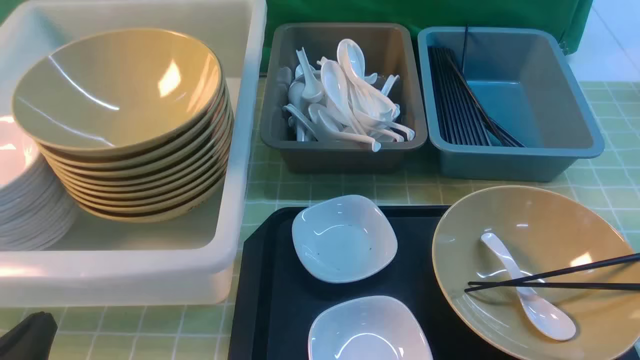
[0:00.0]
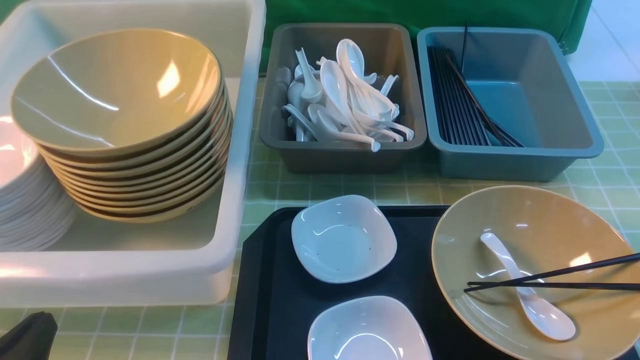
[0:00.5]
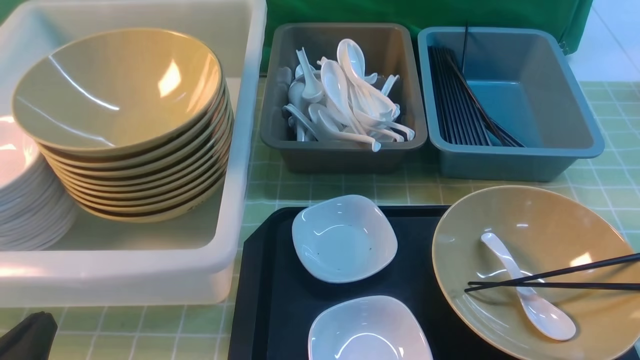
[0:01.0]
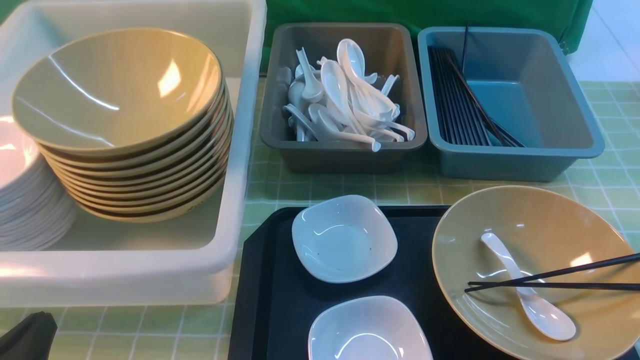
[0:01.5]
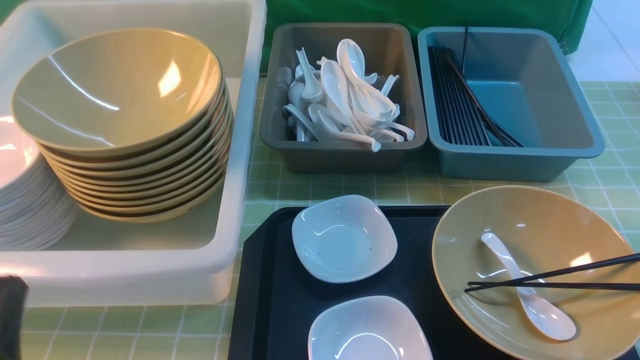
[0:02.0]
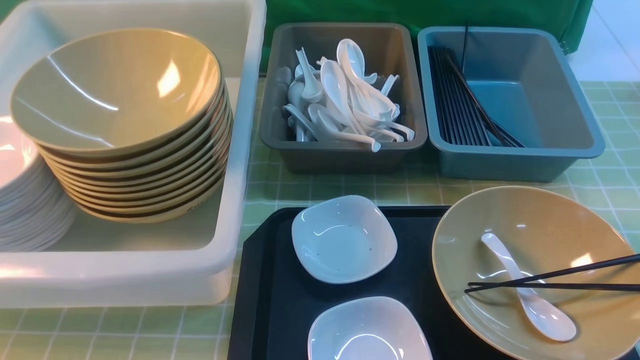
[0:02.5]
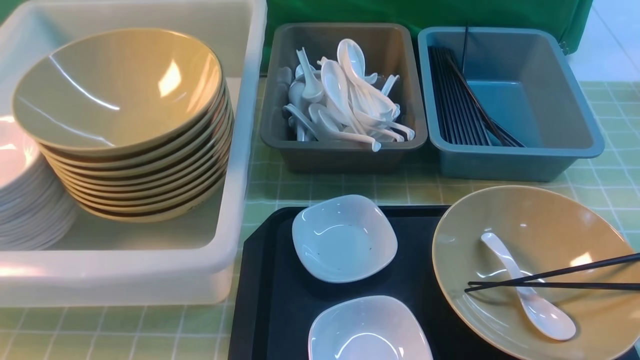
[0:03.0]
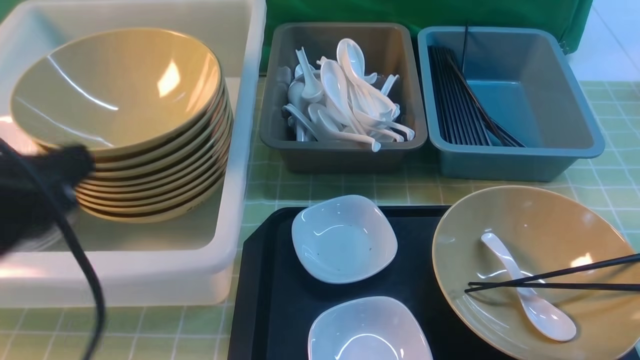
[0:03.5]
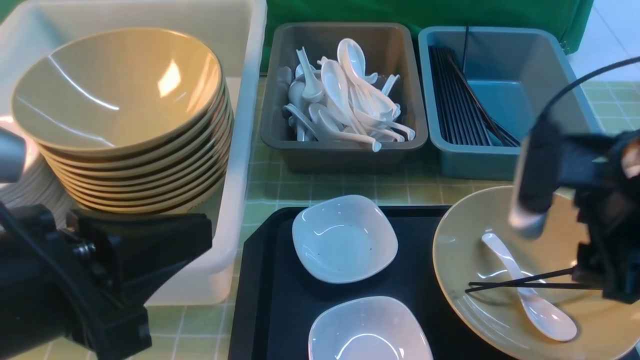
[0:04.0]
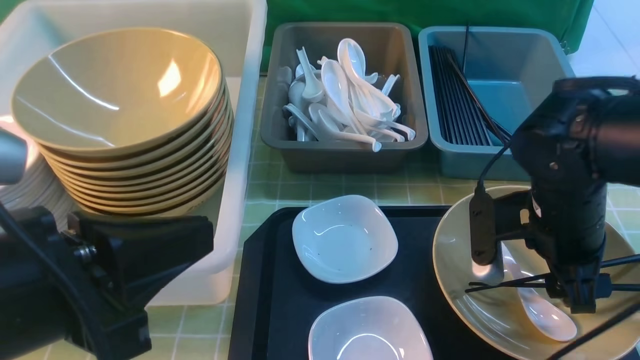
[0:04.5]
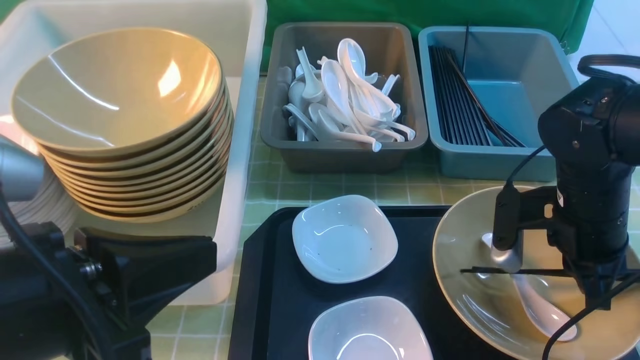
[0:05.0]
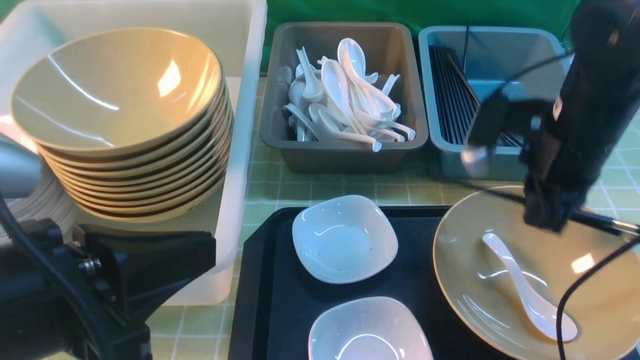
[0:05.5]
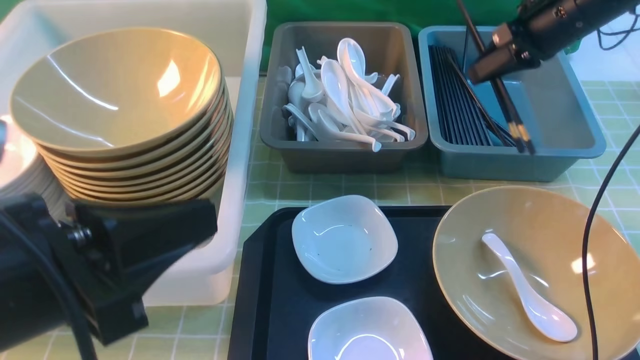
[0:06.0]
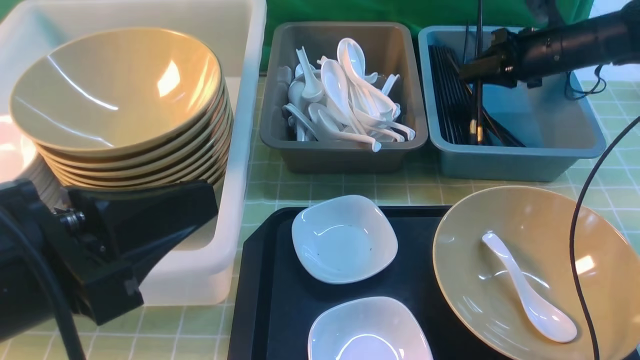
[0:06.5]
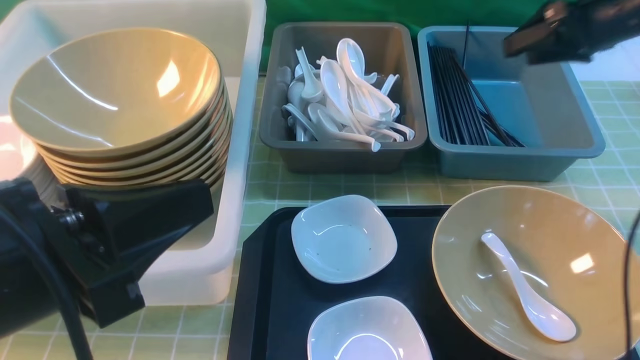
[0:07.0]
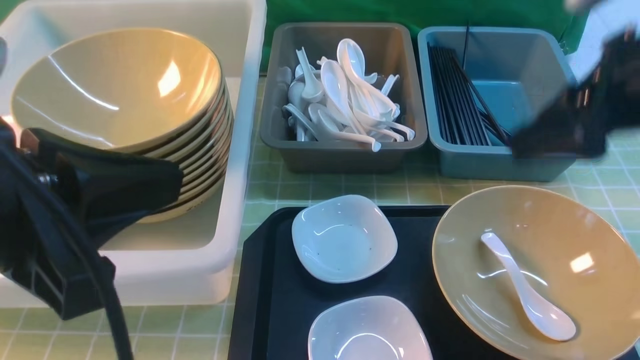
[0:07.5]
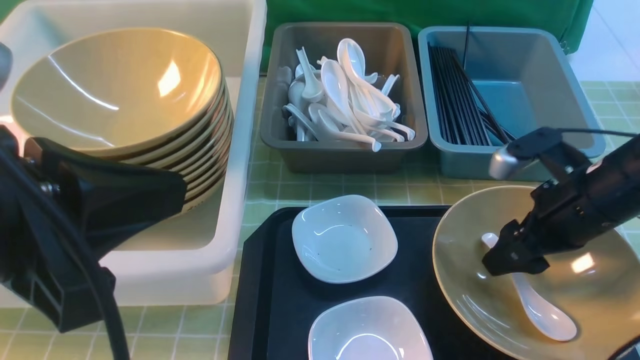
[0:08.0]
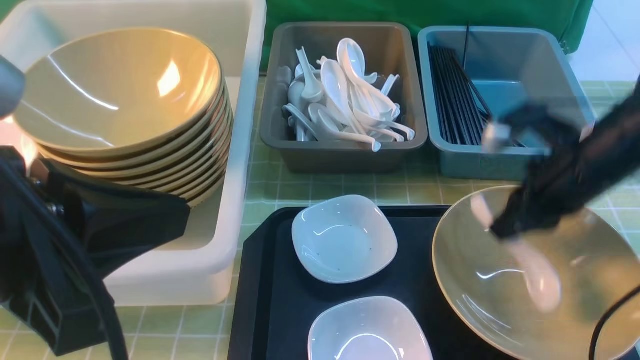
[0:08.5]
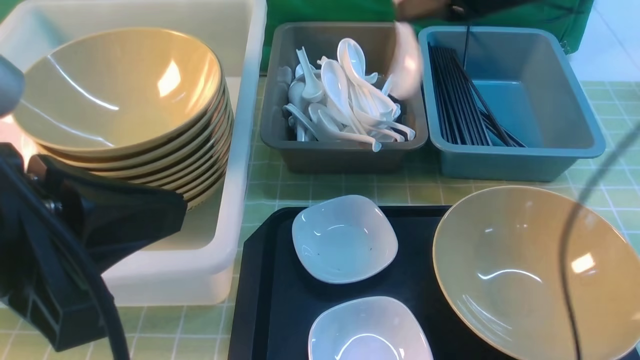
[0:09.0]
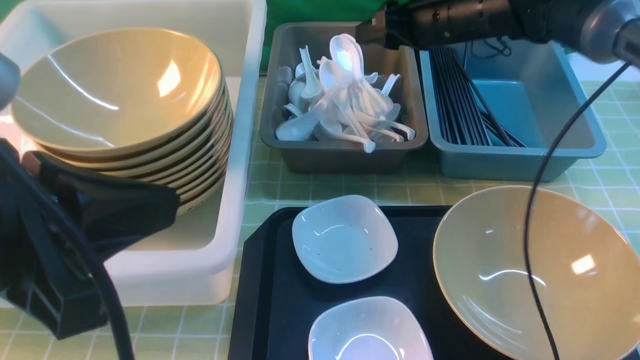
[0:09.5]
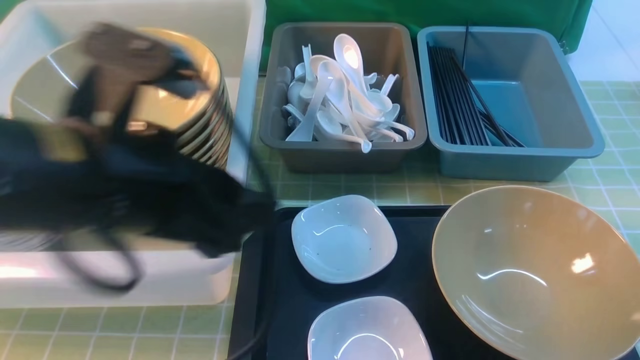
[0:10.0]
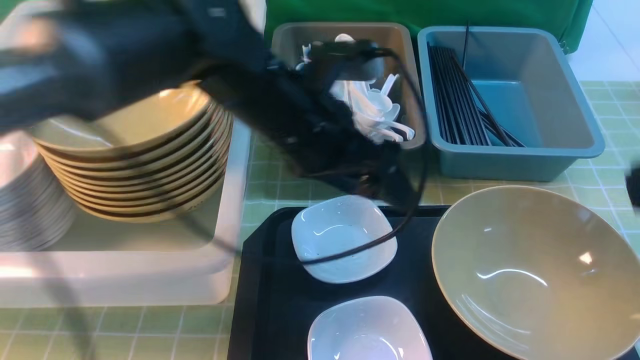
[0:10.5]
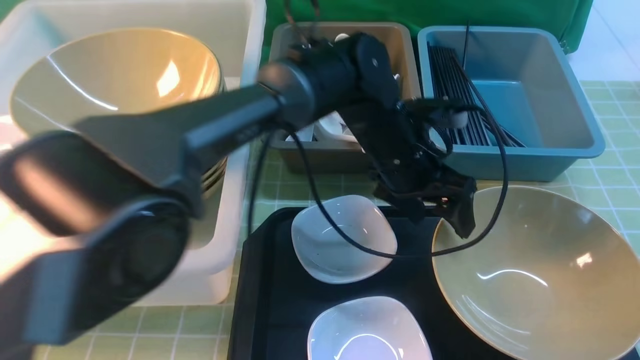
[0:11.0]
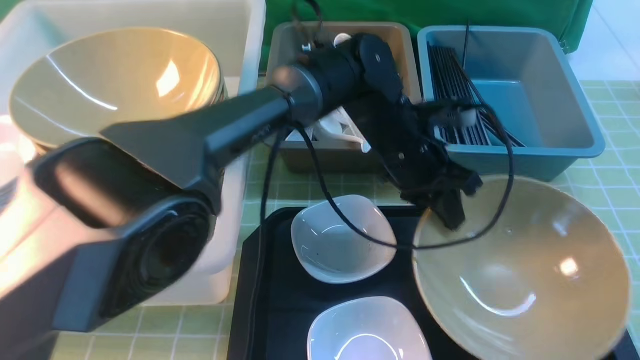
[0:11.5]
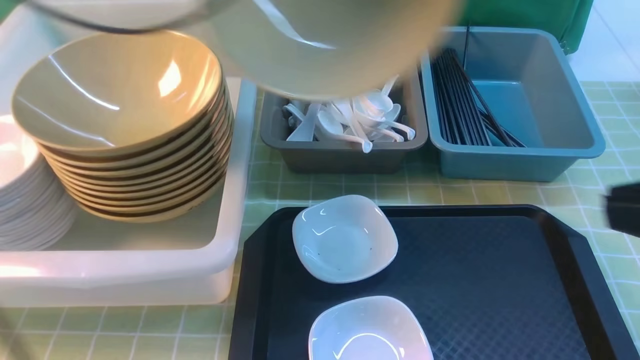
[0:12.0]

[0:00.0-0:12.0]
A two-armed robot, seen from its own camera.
Task of the whole recording: on green table put chopsticks spoon bowls plates into blue grey white boxes.
Step, 0:00.0 to 0:05.0: use the right arm to grab the chopsticks.
Step, 0:05.5 to 0:07.0: use the right arm to put the chopsticks into the small storage box on the right.
Step, 0:07.5 to 0:08.5: use the right arm to grab the soup spoon in the middle.
Step, 0:09.0 to 0:10.0: use the right arm to put the soup spoon into the small storage box in the middle.
Step, 0:10.5 to 0:11.5: use the left arm to grab the yellow noodle bowl on the left.
0:00.0 to 0:02.0: There are only small adjustments of the grippers.
0:02.0 to 0:04.0: The left gripper is displaced upward and to the right by some 15 cm; the right gripper shifts about 25 cm forward, upward and to the left, and opens.
0:04.0 to 0:06.0: The right gripper travels forward by approximately 25 cm, and closes.
0:06.0 to 0:08.0: The right gripper travels backward and downward by some 20 cm, and opens.
0:08.0 to 0:10.0: The right gripper is displaced upward by some 25 cm, and closes, then opens again. Meanwhile the left gripper goes approximately 10 cm forward and to the right, and opens.
0:10.0 to 0:12.0: The right gripper heads backward, covering roughly 20 cm, and closes up, while the left gripper goes some 20 cm forward and upward, goes to the right and returns, some 20 cm each way, and closes its fingers.

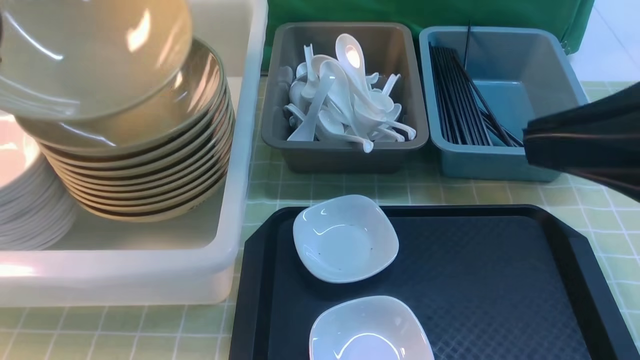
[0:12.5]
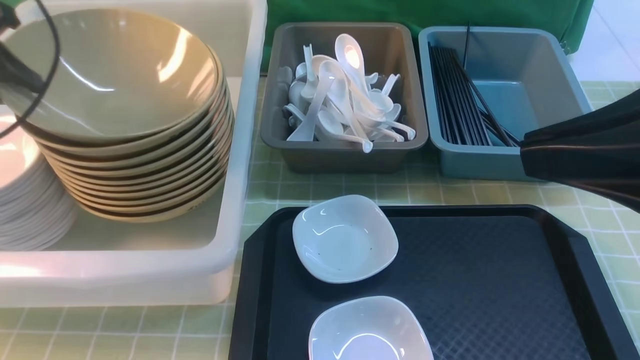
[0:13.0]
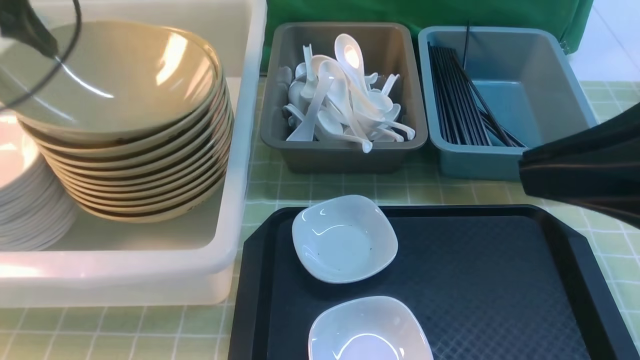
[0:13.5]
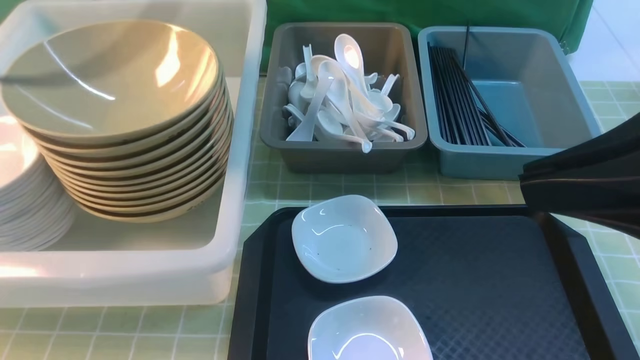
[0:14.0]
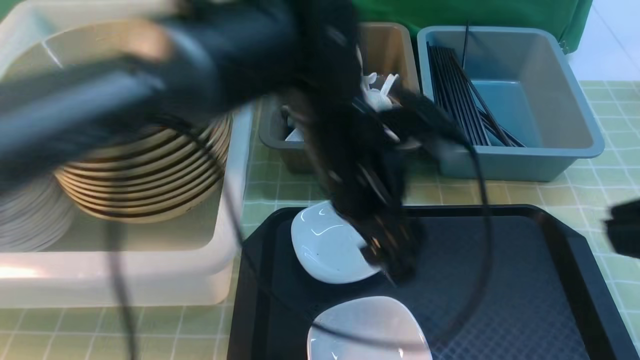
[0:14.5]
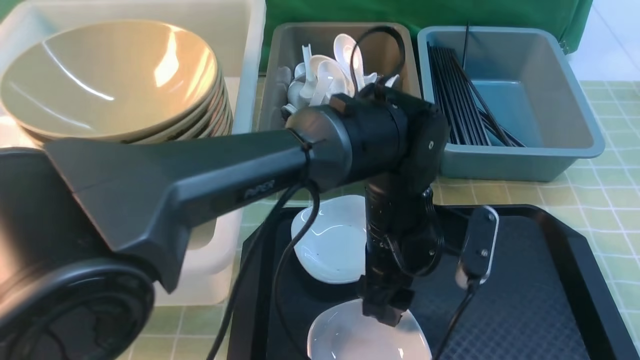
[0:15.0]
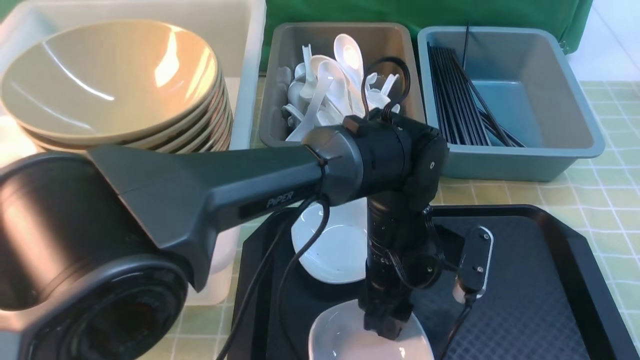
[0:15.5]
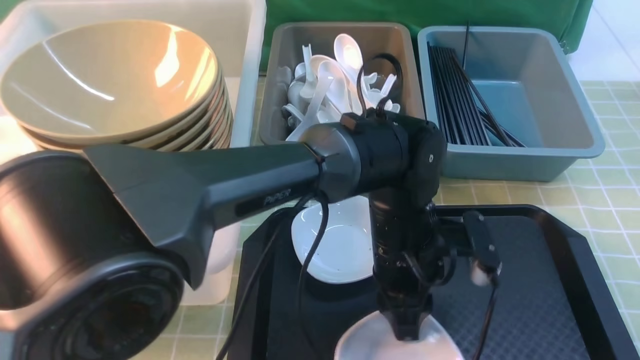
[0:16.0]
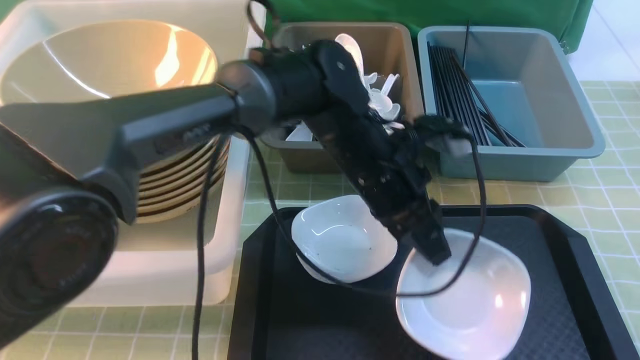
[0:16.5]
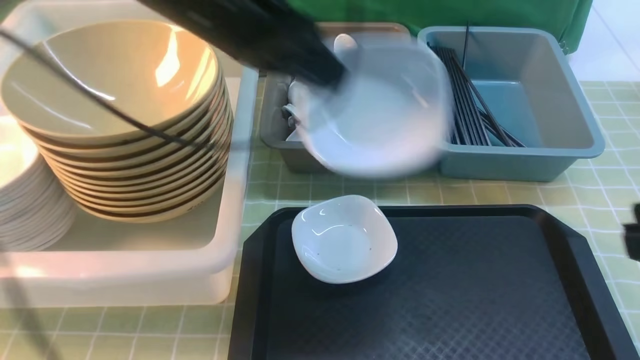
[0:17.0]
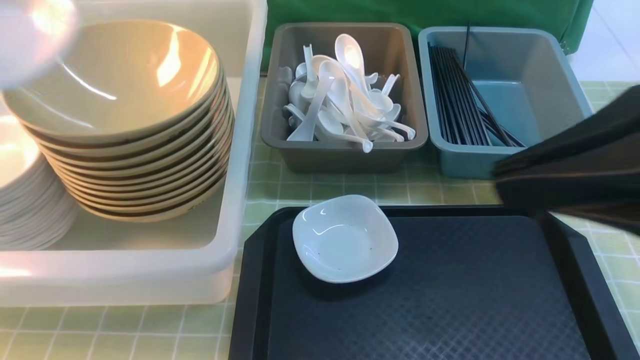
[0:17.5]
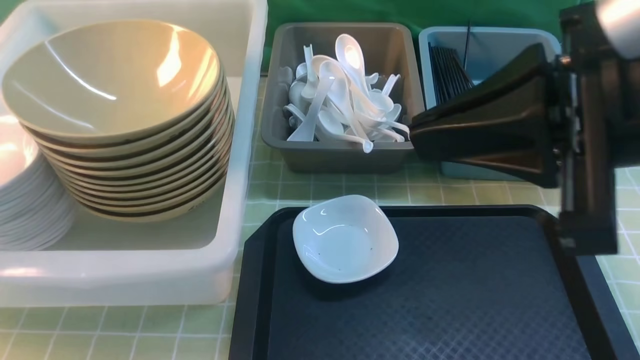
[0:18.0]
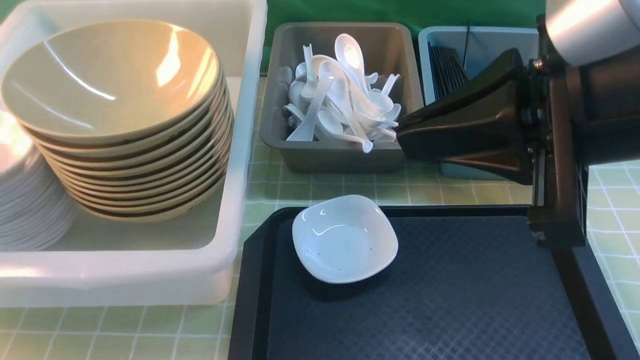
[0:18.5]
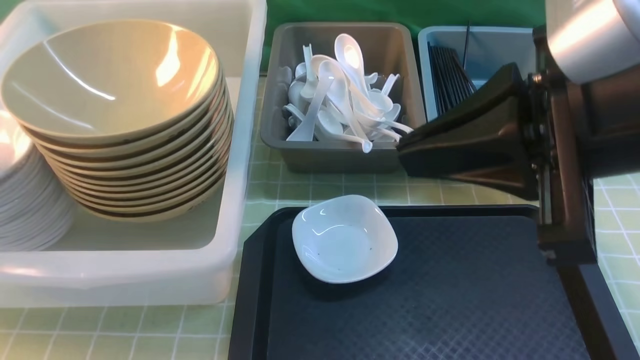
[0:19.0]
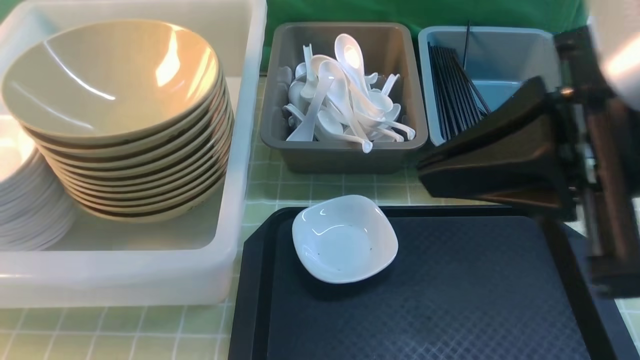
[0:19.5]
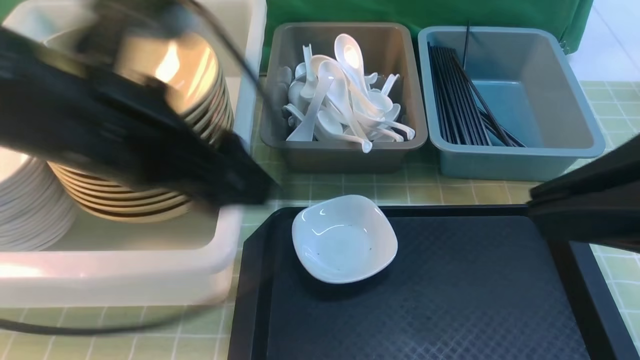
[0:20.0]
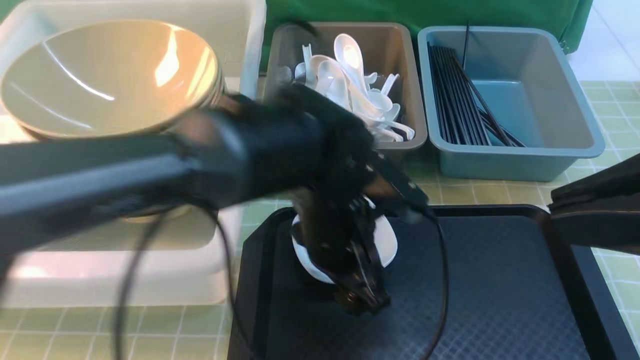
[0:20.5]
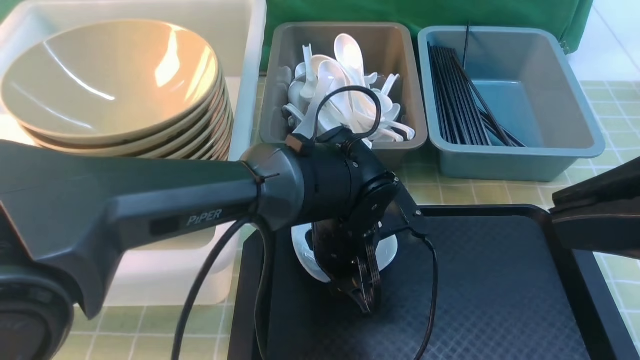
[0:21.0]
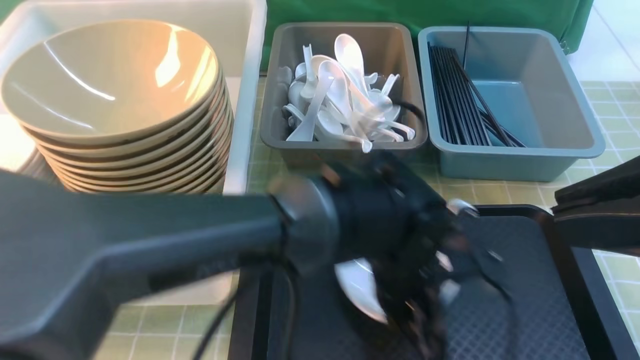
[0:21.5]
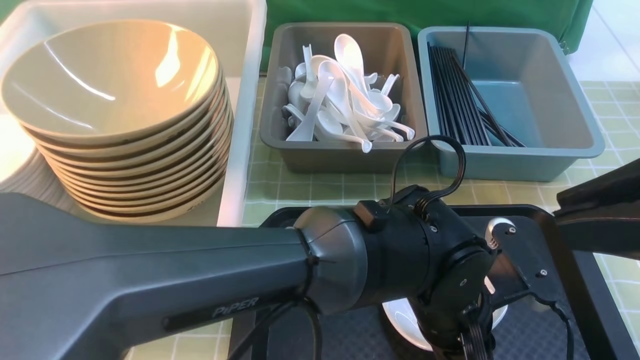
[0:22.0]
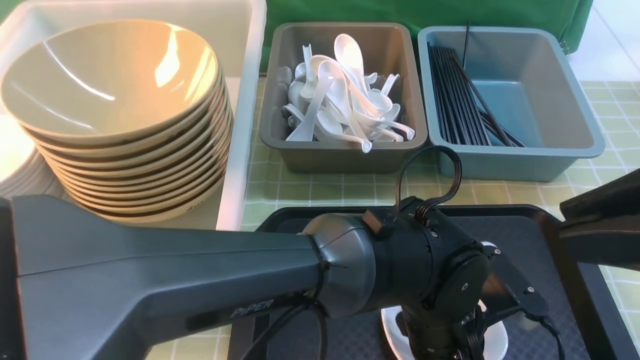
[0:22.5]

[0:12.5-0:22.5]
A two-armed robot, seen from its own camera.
Task of the whole recording: on green table put chopsticks spoon bowls plates into blue grey white boxes.
Step, 0:12.5 to 0:13.5: use the left arm to put the noodle bowl into the large storage box on the left.
Step, 0:14.0 to 0:16.0: use the left arm to grab the plate.
Step, 0:16.5 to 0:19.0: use the left arm to put the plate into the large storage box on the left.
0:12.5 to 0:14.5: The left gripper travels to the right by about 40 cm, and opens up.
0:14.5 to 0:16.5: The left gripper is displaced downward by some 5 cm, and closes up.
0:16.5 to 0:18.5: The left gripper moves to the left, some 50 cm. Meanwhile the right gripper travels forward and to the left by approximately 15 cm.
0:18.5 to 0:20.5: The left gripper travels to the right by approximately 50 cm, and opens up; the right gripper shifts roughly 5 cm backward.
0:20.5 to 0:22.5: The left gripper shifts some 10 cm to the right and backward, and closes, then opens again.
